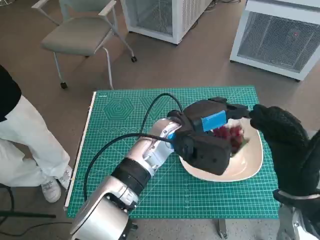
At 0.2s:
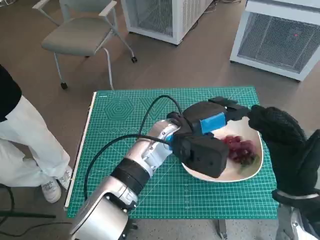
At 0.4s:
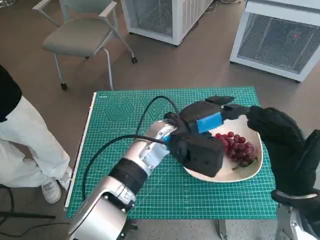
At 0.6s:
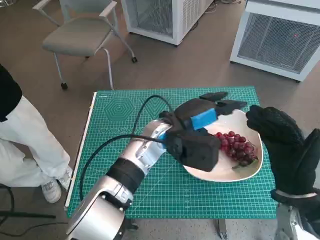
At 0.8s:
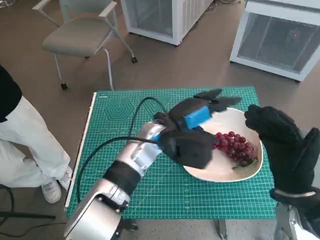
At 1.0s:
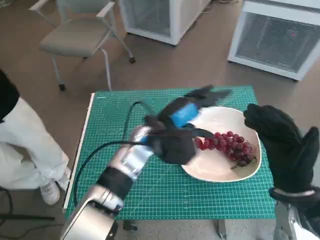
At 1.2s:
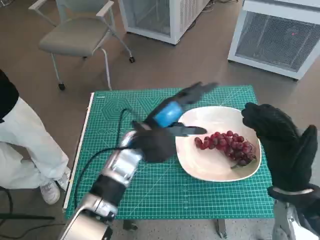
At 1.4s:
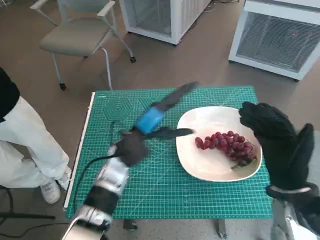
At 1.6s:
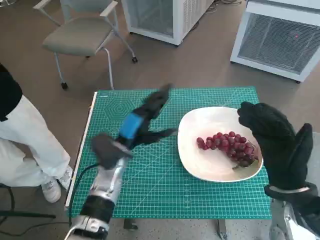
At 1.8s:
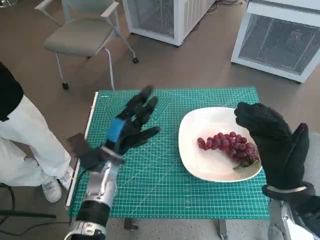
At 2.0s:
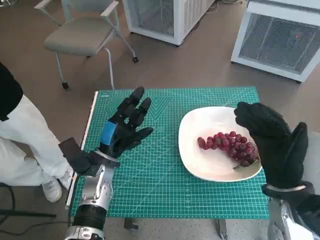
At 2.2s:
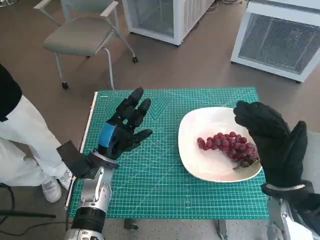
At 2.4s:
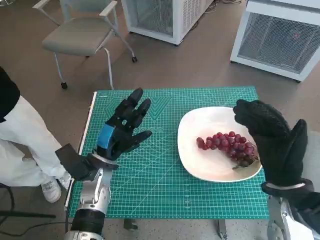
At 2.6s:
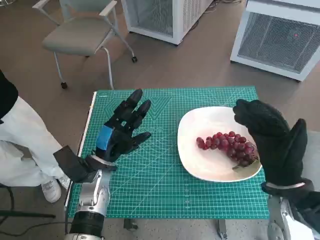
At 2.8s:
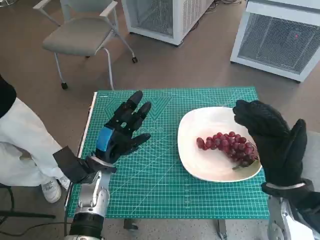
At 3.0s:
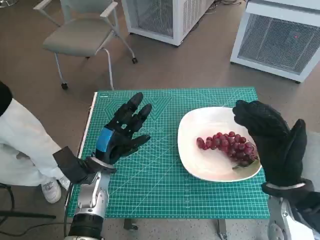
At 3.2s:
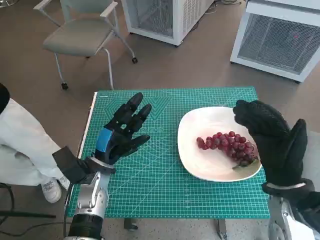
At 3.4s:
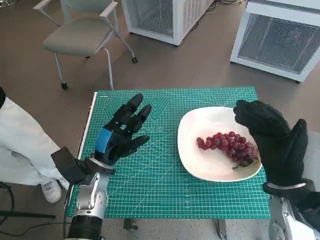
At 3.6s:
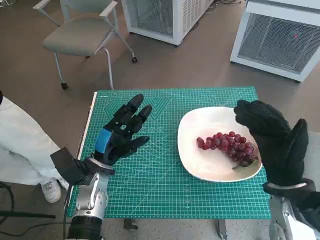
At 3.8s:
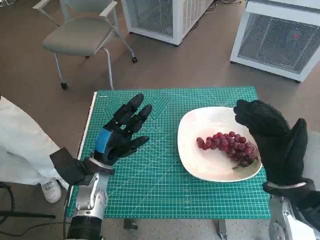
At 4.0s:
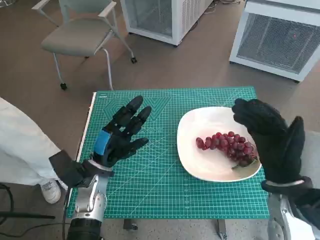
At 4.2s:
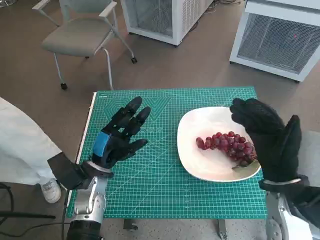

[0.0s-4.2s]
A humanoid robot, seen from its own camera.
Task of the whole recording: Pick up the grapes and put them on the plate.
0.0s to 1.4s: The left hand is displaced to the left by approximately 10 cm.
1.4s to 2.8s: The left hand shifts about 10 cm to the left and downward.
2.8s to 4.2s: Both hands stay put.

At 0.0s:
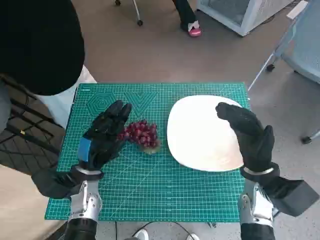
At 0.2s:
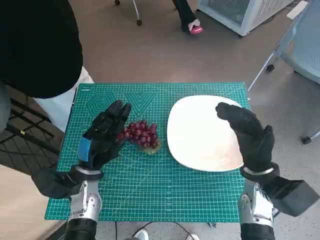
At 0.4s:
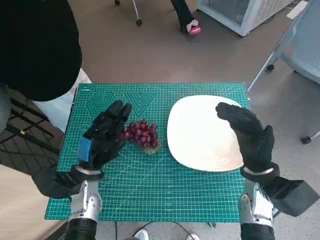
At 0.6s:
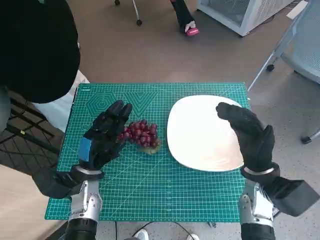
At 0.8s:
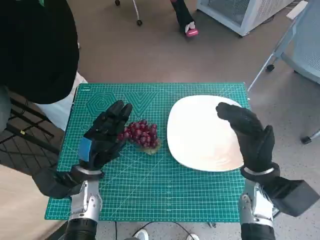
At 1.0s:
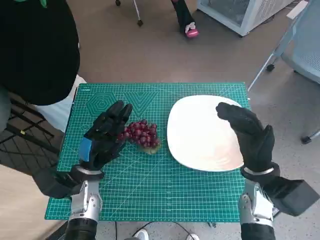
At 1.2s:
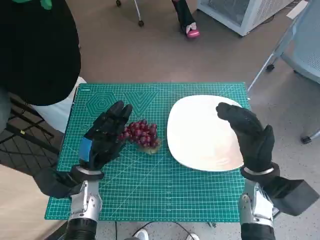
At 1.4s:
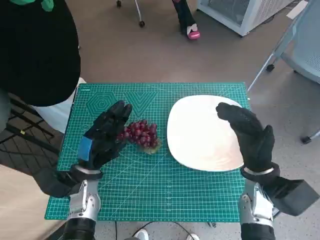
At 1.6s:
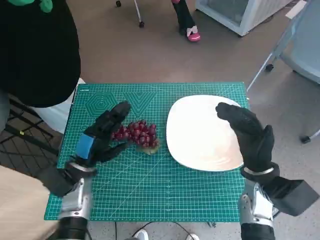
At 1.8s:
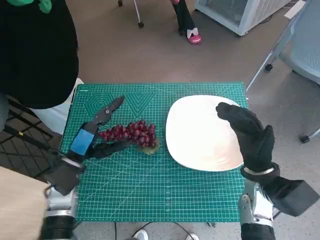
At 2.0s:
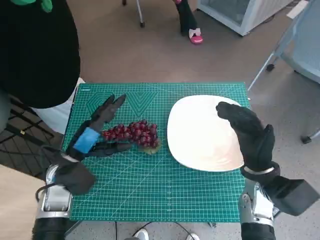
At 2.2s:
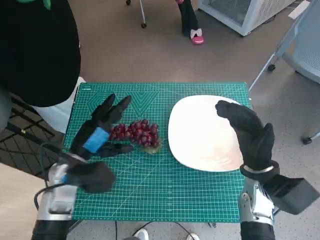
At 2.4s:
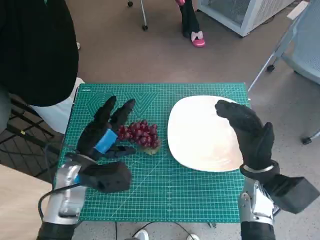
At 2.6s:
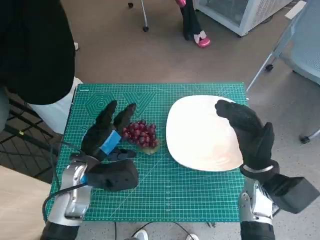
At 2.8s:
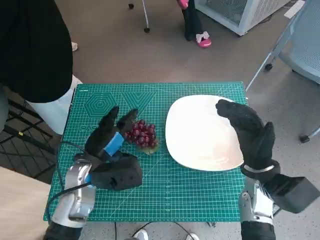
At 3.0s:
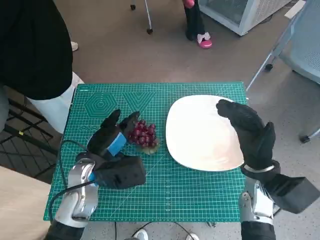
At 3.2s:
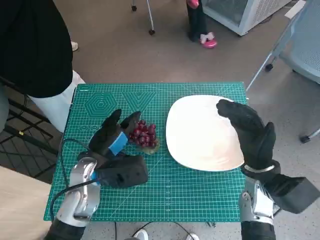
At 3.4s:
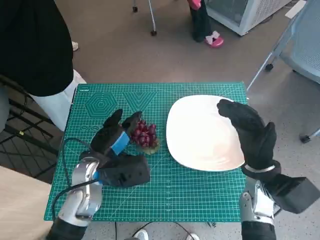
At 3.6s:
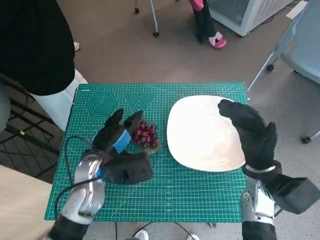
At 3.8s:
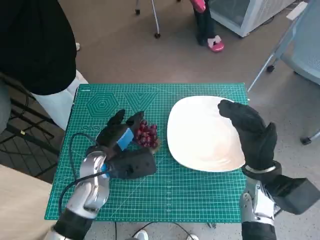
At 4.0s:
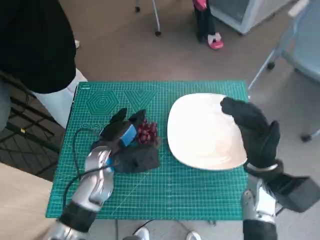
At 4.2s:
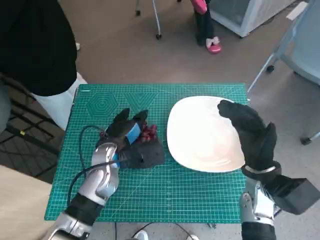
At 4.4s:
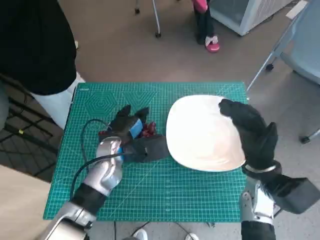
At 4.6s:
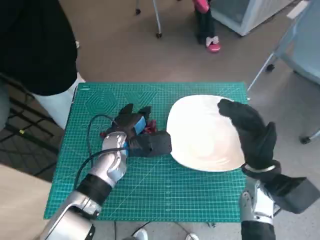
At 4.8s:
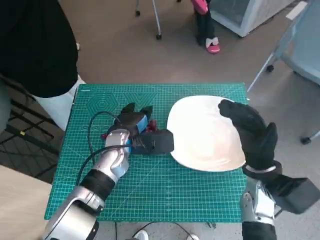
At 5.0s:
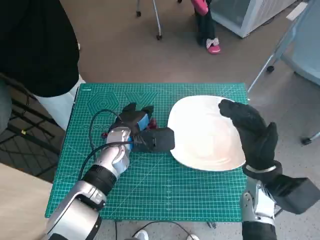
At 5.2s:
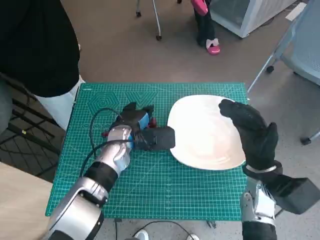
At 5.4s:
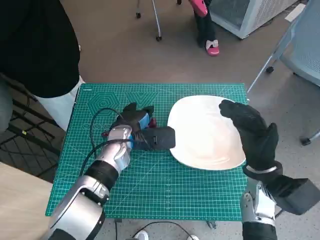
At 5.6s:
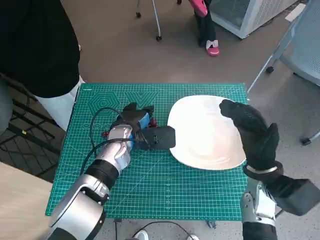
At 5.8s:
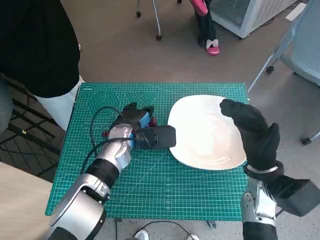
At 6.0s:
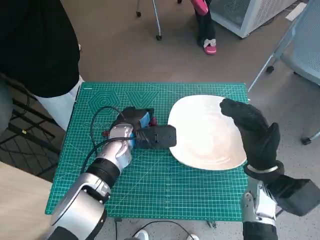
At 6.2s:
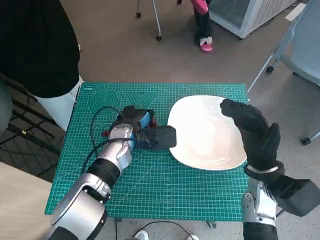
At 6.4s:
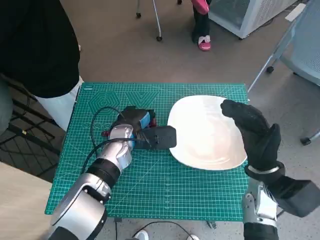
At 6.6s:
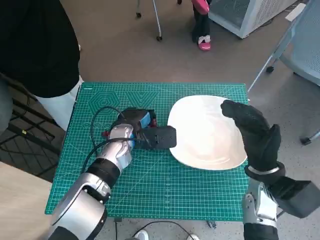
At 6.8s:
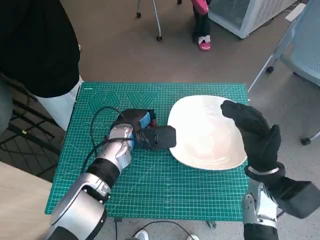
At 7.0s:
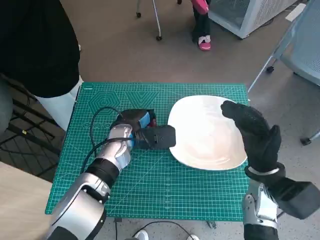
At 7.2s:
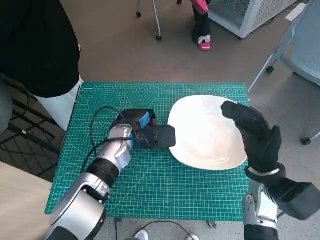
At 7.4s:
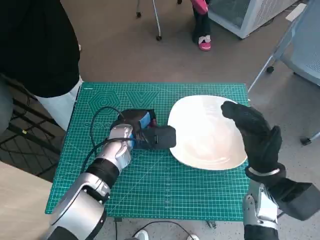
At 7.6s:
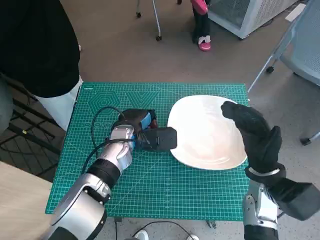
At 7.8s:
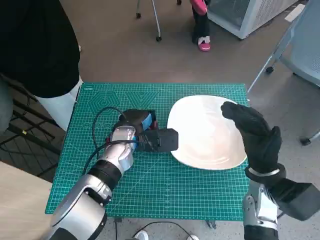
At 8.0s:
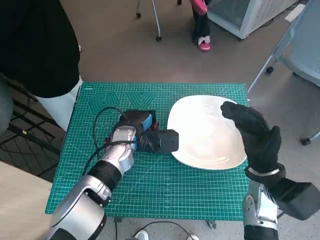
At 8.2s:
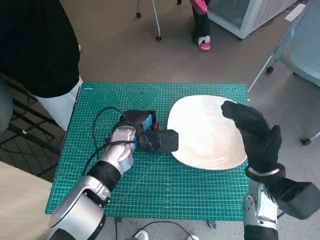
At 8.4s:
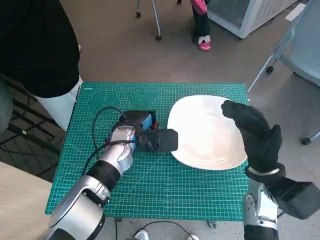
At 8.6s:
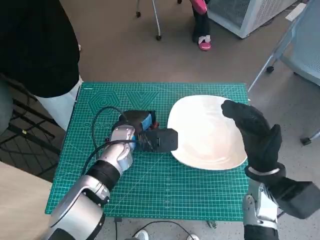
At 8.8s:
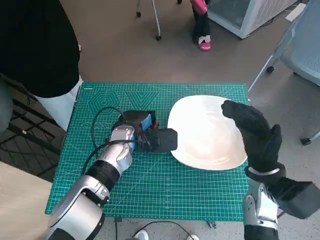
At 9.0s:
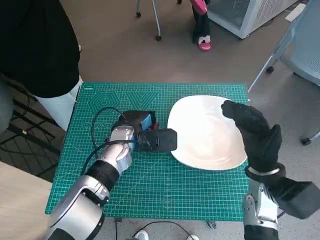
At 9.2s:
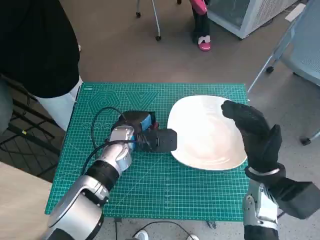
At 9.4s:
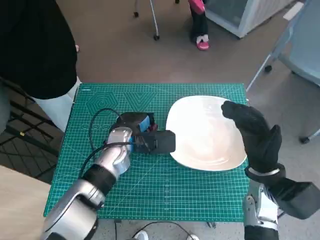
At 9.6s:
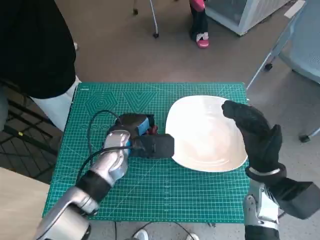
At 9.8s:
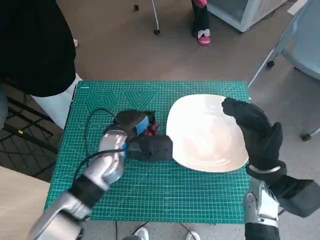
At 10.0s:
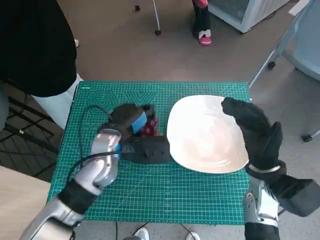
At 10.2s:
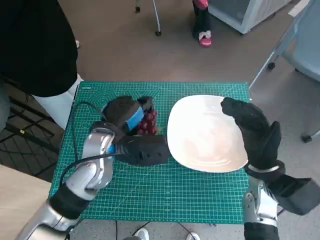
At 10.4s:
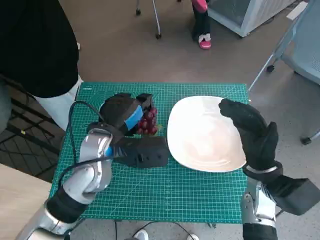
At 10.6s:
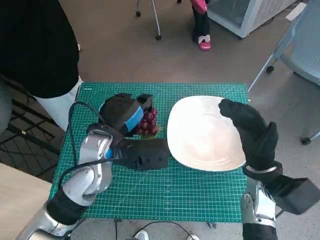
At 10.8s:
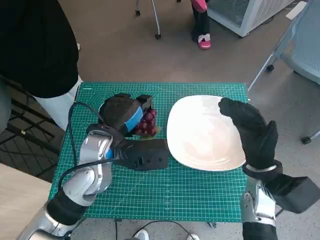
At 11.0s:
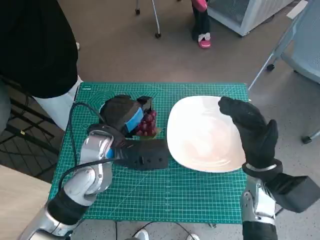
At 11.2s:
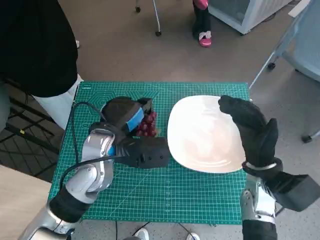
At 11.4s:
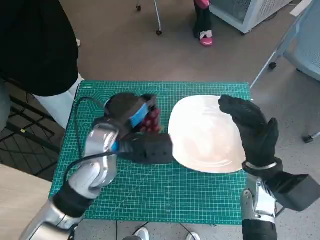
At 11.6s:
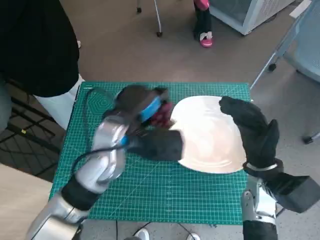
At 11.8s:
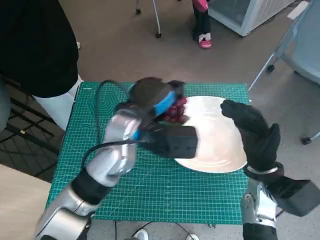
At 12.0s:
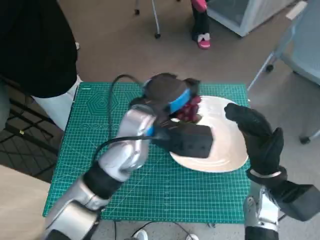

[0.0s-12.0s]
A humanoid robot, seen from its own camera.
Task of the whole recording: Pick up the grapes and put them on the plate.
Step, 0.0s to 6.8s: Grasp the grapes with left hand.
1.6s to 3.0s: The left hand changes place by some 5 cm.
3.0s to 4.4s: The left hand shifts some 5 cm forward.
4.4s to 6.0s: The hands move only a little.
6.0s to 9.0s: Both hands stay put.
9.0s to 10.4s: The left hand goes about 10 cm upward and backward.
10.4s to 12.0s: The left hand moves to the right, about 5 cm.

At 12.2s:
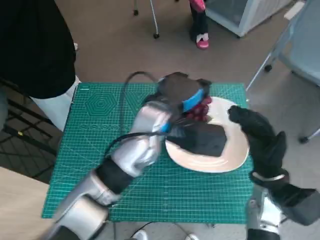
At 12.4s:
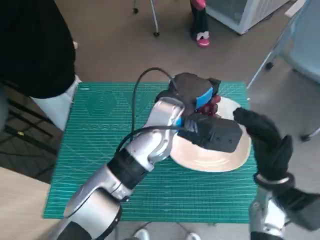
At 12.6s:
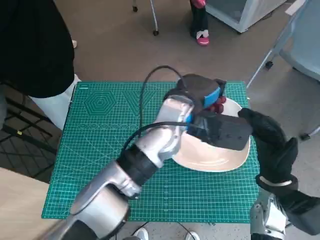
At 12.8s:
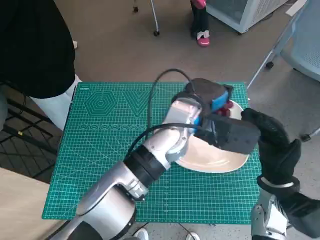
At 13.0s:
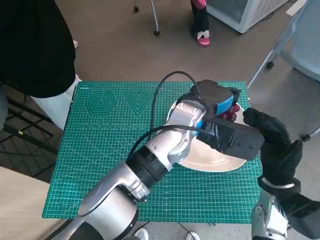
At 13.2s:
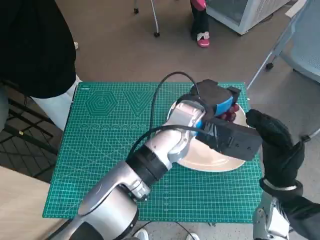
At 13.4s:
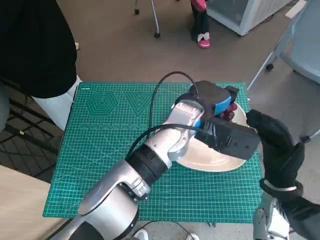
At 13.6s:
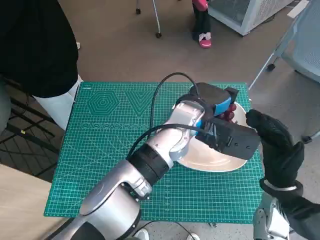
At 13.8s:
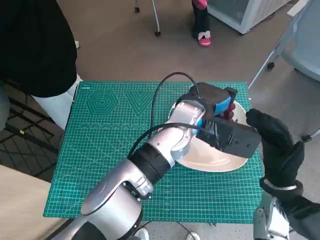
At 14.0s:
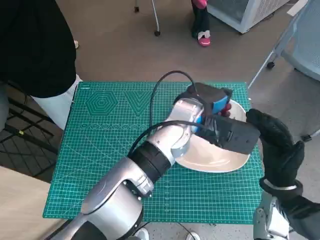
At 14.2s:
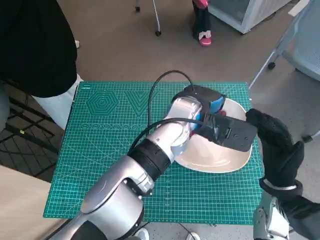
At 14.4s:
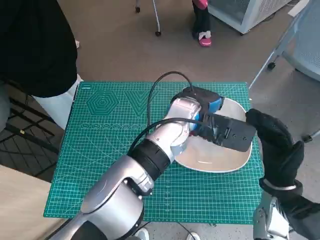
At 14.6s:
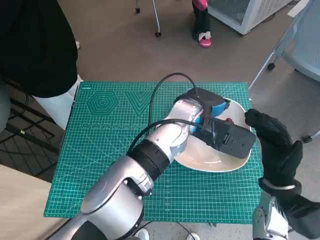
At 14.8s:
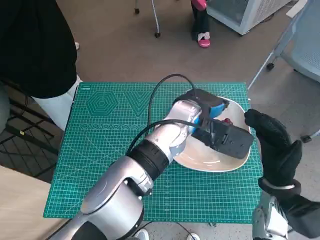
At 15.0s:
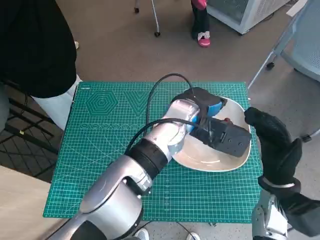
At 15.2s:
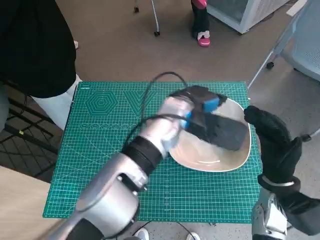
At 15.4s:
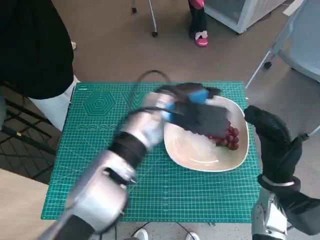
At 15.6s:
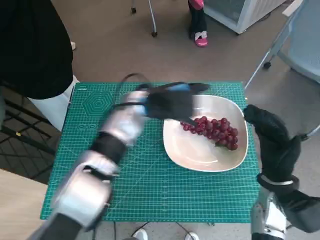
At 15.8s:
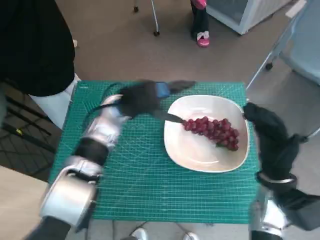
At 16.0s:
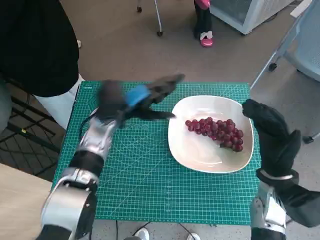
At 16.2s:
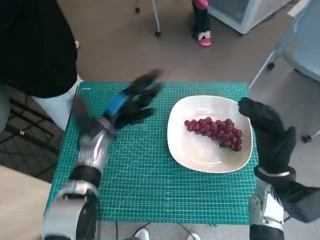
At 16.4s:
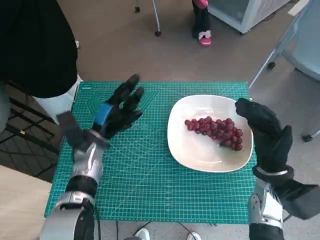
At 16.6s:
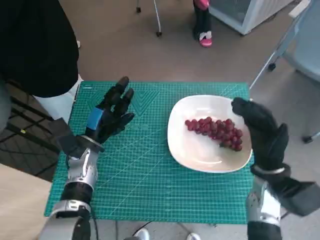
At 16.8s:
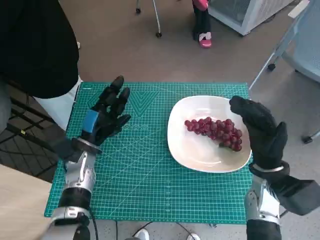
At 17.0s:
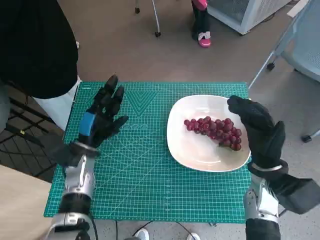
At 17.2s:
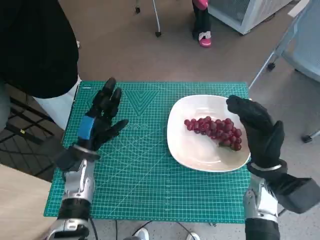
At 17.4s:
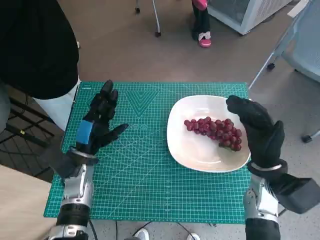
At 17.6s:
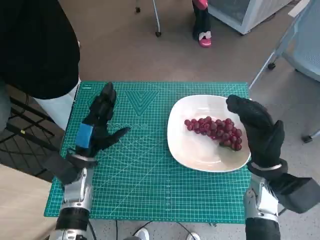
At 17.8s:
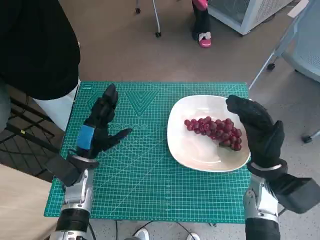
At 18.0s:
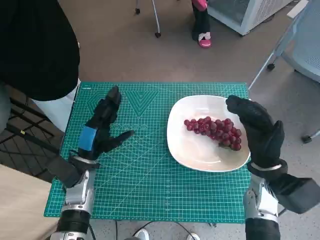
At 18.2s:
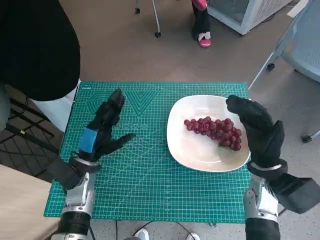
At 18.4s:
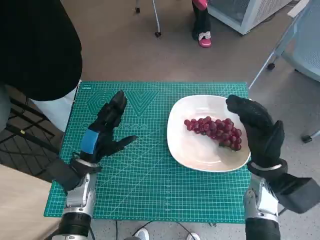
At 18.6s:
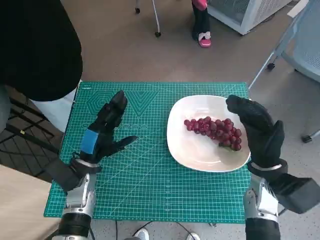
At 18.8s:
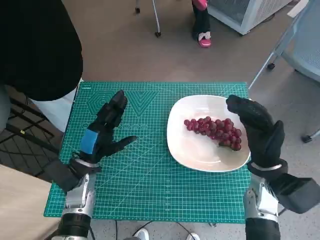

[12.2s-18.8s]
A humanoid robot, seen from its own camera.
Task of the whole recording: Pick up the grapes and put them on the plate.
Step, 12.2s to 14.4s: Place the grapes in the plate with left hand.
12.2s to 13.8s: The left hand heads to the right, covering some 5 cm.
15.4s to 17.2s: The left hand goes some 25 cm to the left and downward.
17.2s to 18.8s: There are only small adjustments of the hands.
